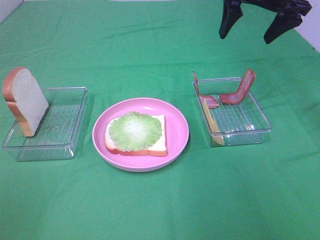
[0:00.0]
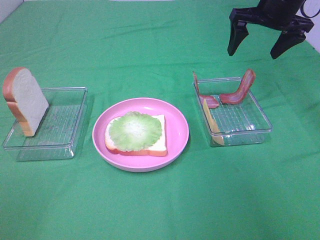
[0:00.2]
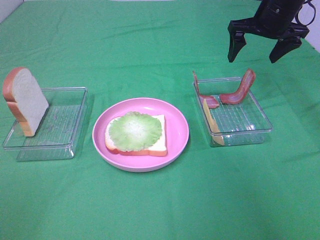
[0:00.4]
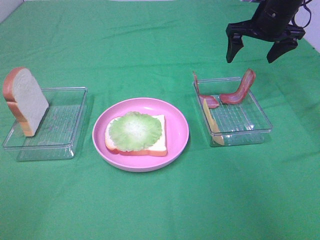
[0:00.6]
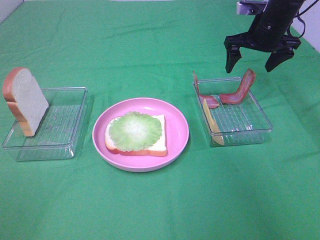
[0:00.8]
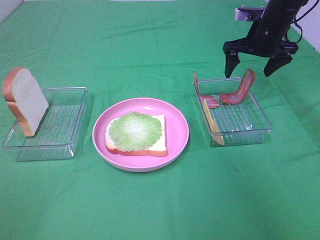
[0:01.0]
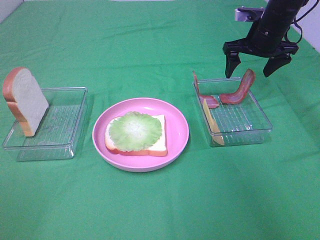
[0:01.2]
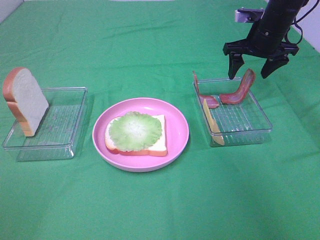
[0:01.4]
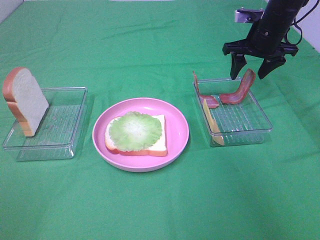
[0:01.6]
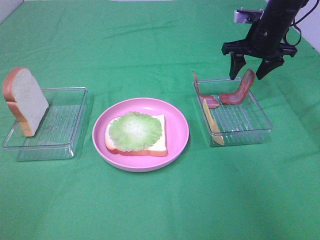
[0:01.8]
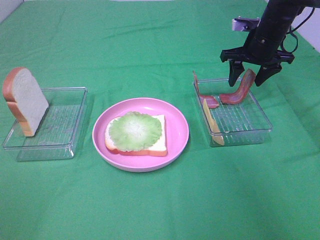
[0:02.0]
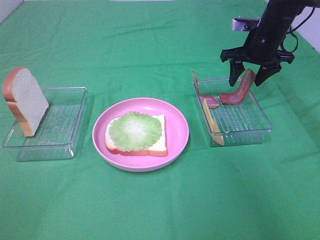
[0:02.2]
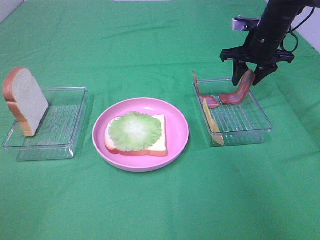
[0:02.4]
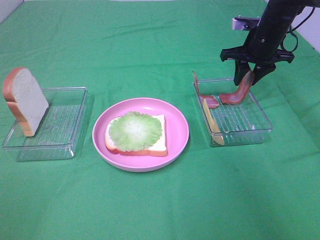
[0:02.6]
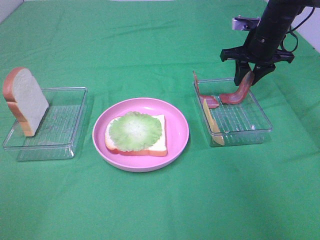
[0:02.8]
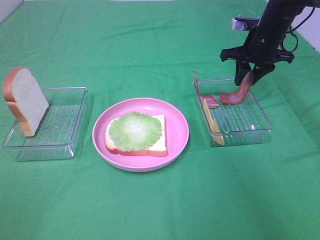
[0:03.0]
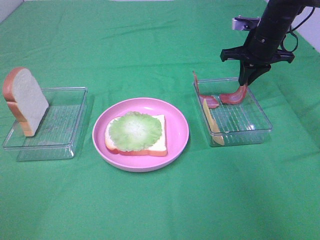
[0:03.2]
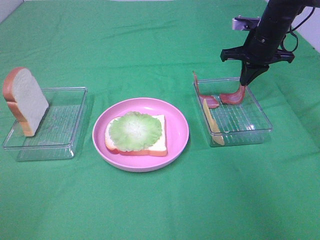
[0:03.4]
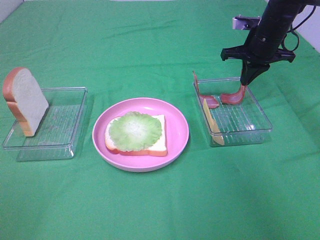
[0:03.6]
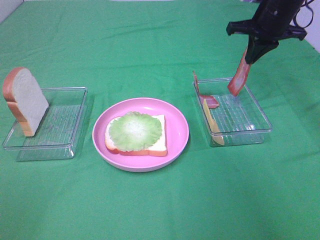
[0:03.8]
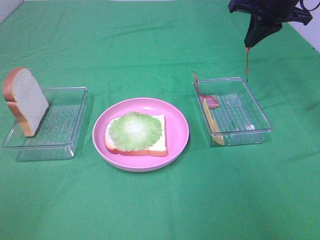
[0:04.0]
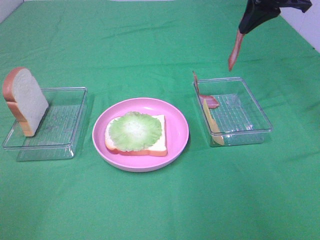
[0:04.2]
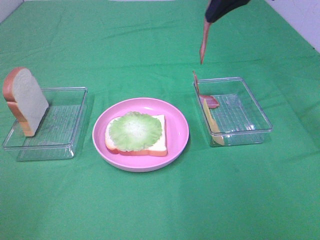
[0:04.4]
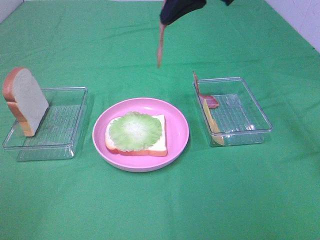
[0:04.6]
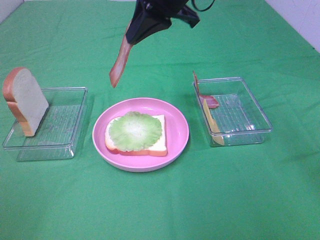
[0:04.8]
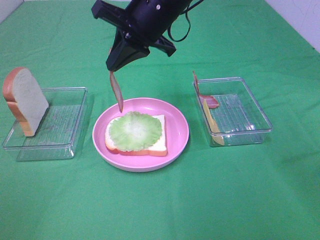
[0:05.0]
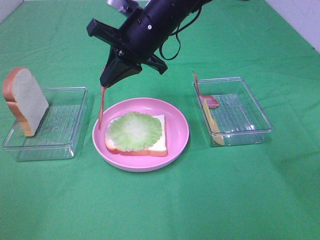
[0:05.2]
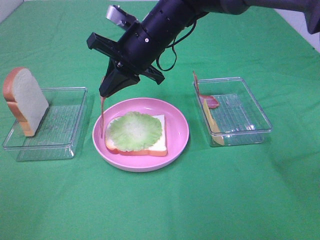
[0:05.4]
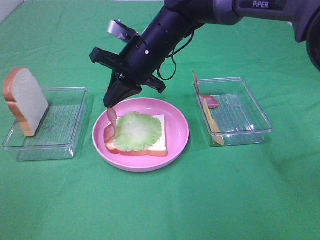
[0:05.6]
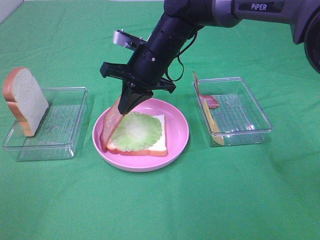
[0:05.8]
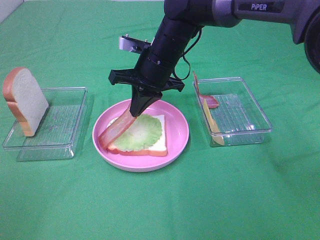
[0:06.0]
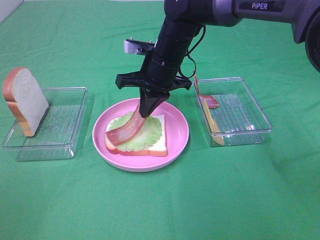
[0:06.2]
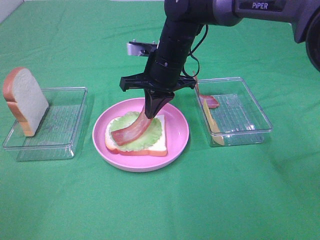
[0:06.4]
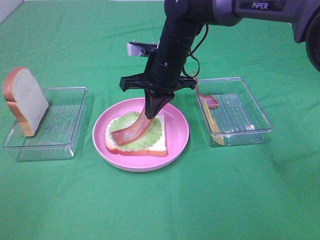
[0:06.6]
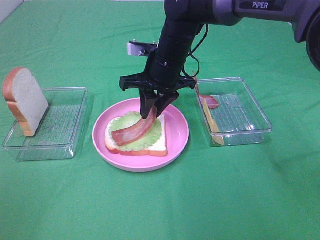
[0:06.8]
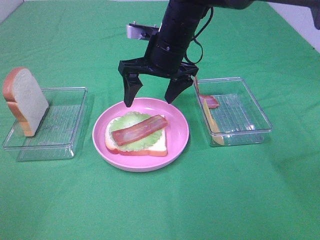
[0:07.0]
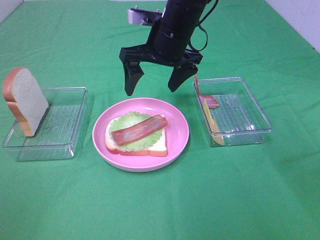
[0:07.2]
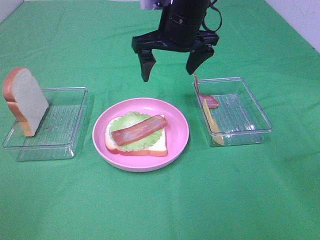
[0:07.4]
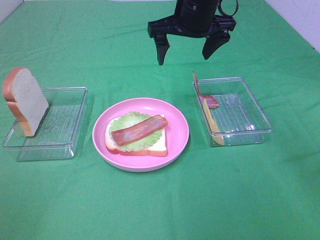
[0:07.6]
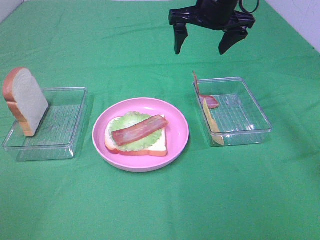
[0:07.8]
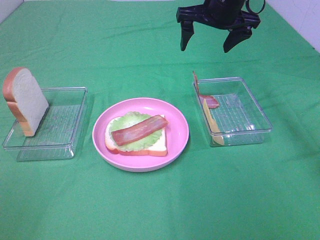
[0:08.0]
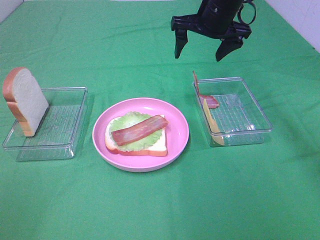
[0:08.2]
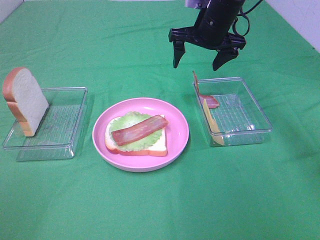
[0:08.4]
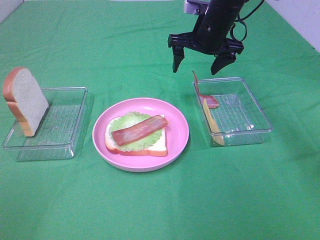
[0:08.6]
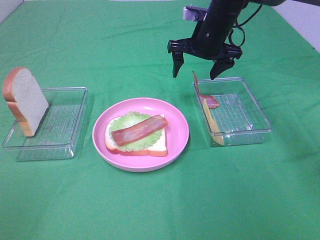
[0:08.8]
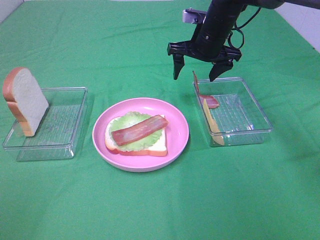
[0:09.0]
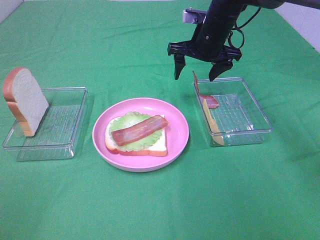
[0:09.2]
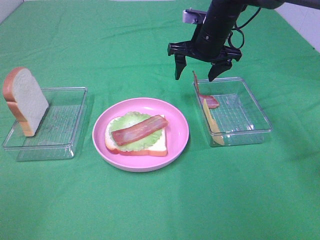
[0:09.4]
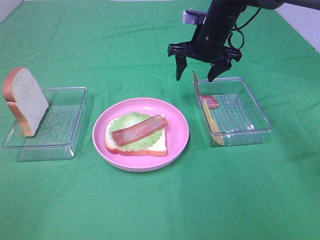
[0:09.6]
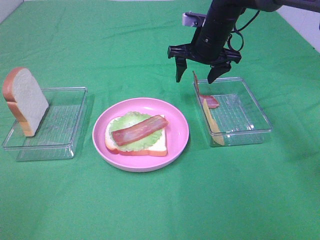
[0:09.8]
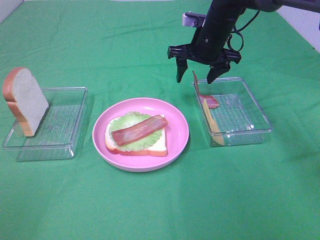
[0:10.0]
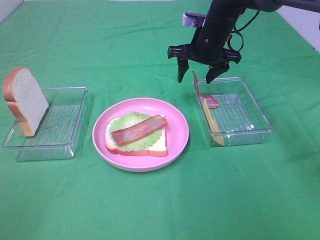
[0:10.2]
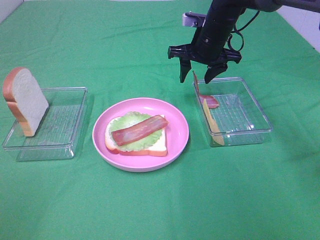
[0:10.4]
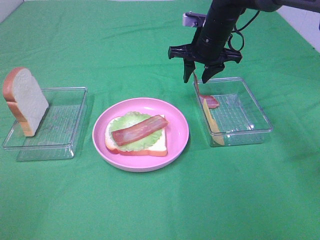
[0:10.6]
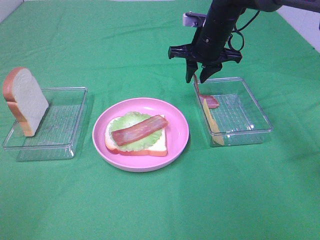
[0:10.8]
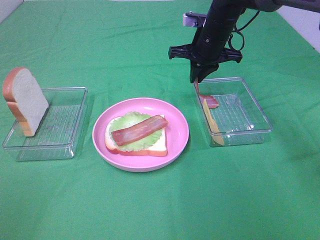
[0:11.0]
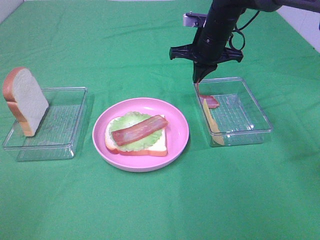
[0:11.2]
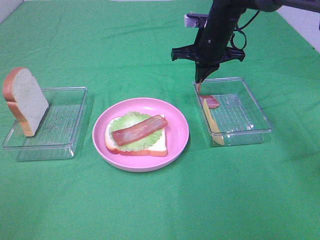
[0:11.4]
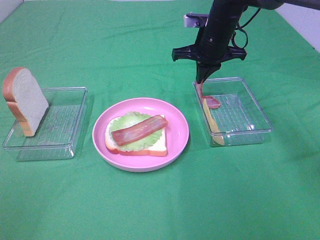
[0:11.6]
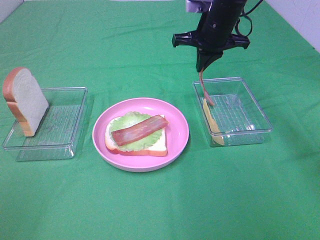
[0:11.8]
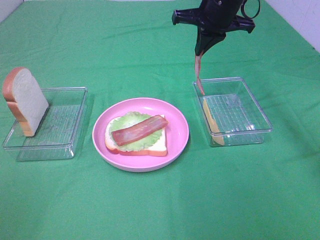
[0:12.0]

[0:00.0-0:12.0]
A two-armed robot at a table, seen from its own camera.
Task of the whole recording: Make sandwiches.
Step, 0.0 to 3.6 s: Right hand:grab the bacon.
Step, 3.8 to 6.8 s: Right hand:place bacon on lettuce slice.
Step, 7.0 to 11.6 s: Right hand:grab the bacon.
0.0 to 1.6 s: The right gripper is displaced downward by approximately 10 cm.
1.6 to 3.0 s: The grippers move only a little.
3.0 to 4.4 s: The right gripper is displaced upward, to the left and backward by about 20 cm, and closes its fingers.
4.4 to 6.0 s: The right gripper travels downward and to the left by some 20 cm.
6.0 to 7.6 s: The right gripper travels upward and to the right by some 10 cm, and opens up.
7.6 to 9.0 s: The right gripper shifts some 10 cm downward.
9.0 to 10.4 s: The two grippers keep their place.
10.4 to 12.0 s: The right gripper goes some 10 cm upward, and closes up.

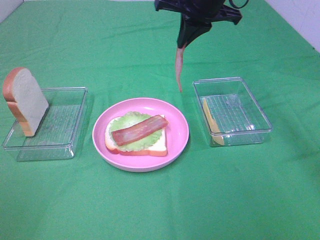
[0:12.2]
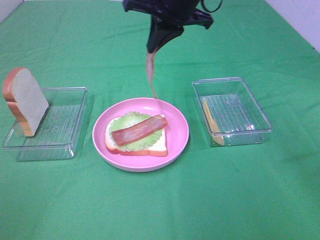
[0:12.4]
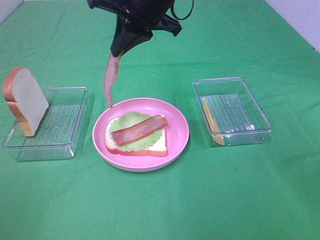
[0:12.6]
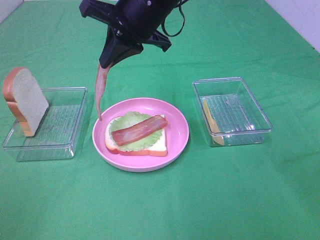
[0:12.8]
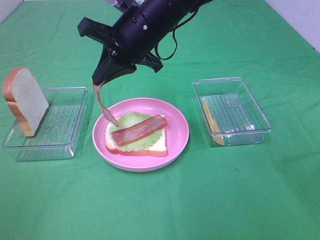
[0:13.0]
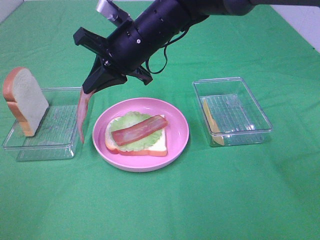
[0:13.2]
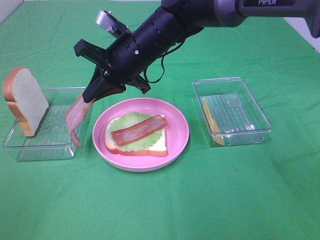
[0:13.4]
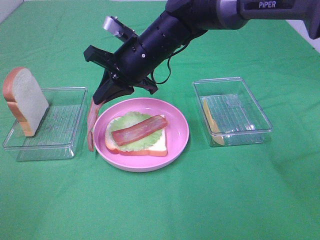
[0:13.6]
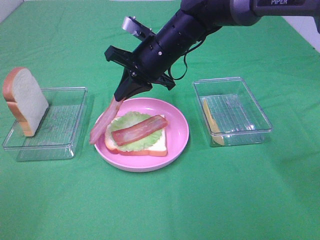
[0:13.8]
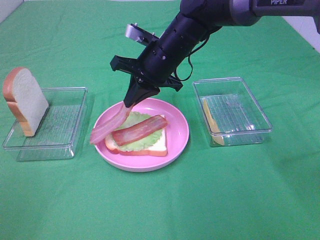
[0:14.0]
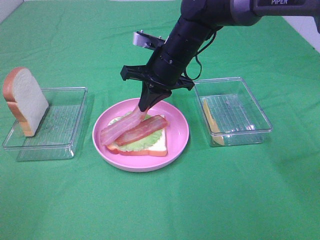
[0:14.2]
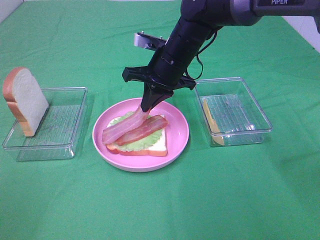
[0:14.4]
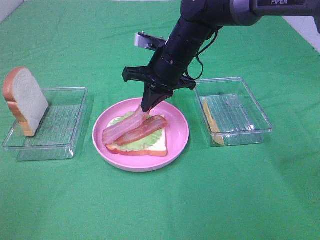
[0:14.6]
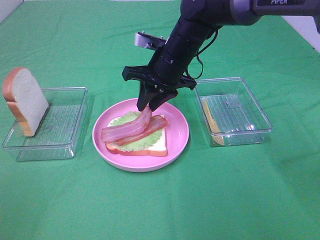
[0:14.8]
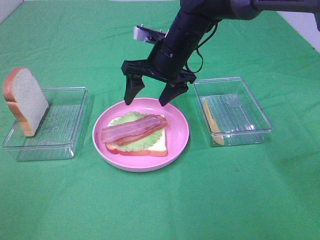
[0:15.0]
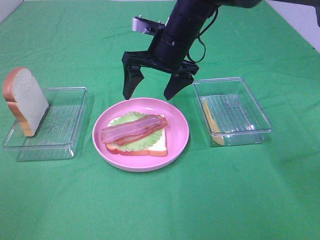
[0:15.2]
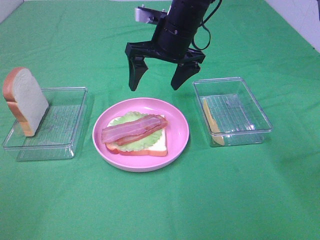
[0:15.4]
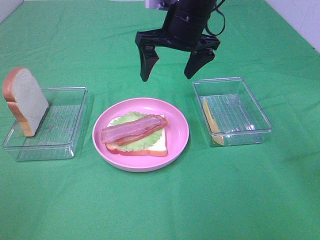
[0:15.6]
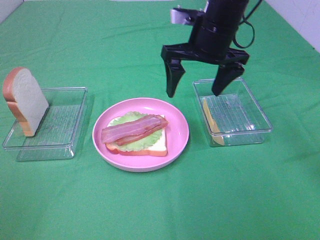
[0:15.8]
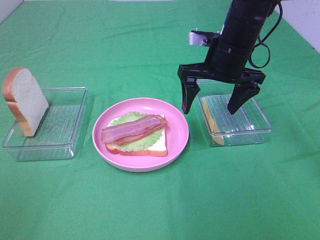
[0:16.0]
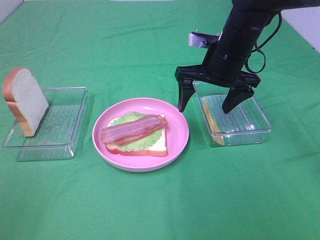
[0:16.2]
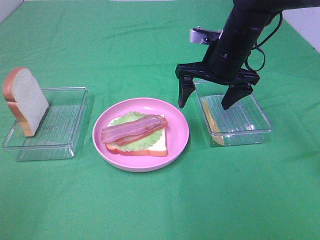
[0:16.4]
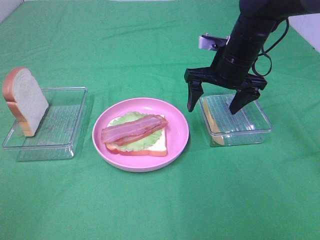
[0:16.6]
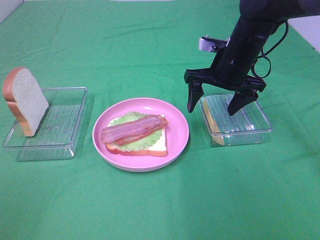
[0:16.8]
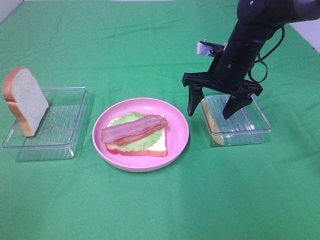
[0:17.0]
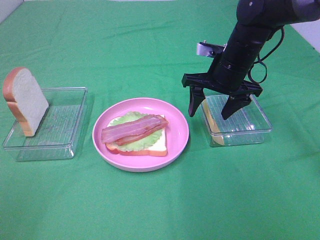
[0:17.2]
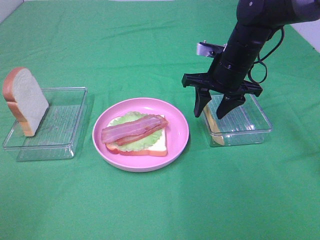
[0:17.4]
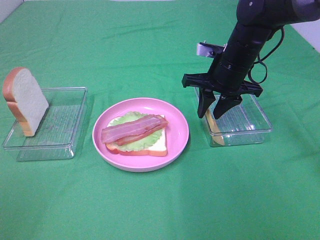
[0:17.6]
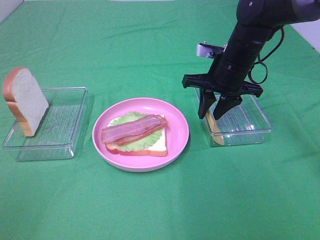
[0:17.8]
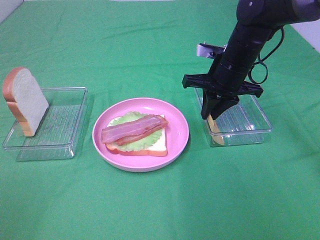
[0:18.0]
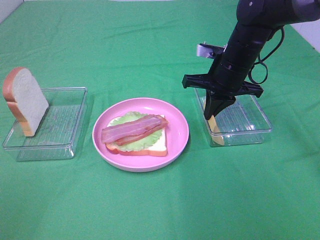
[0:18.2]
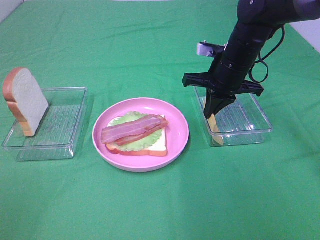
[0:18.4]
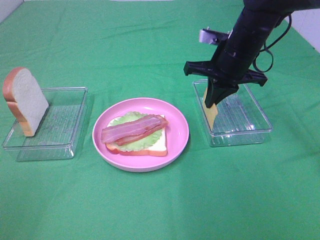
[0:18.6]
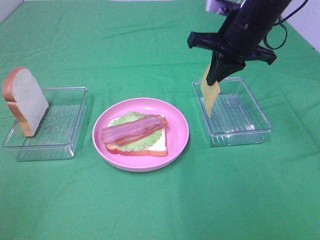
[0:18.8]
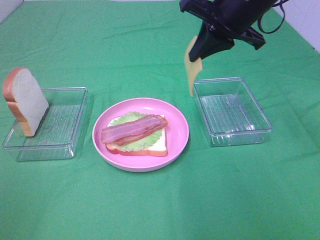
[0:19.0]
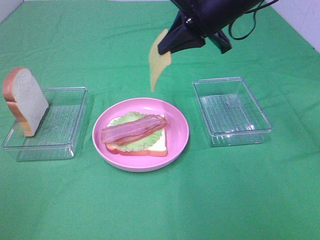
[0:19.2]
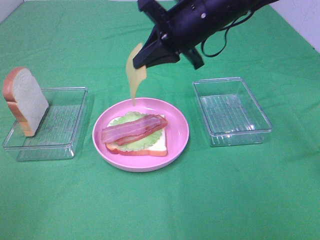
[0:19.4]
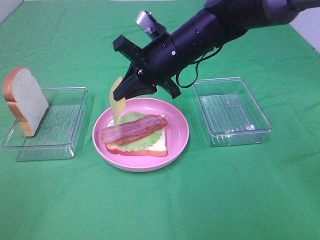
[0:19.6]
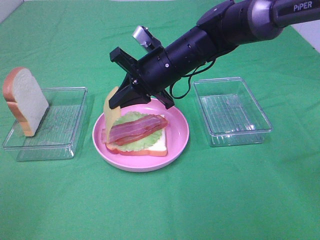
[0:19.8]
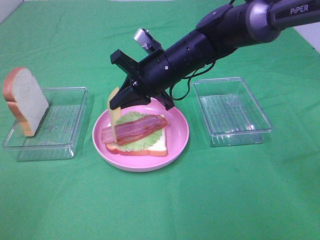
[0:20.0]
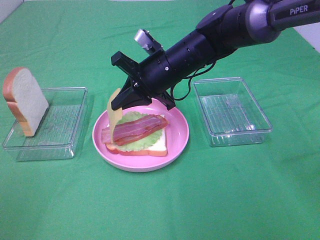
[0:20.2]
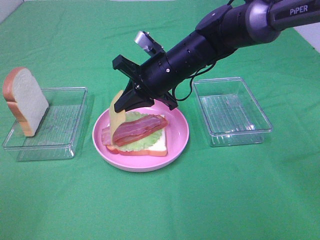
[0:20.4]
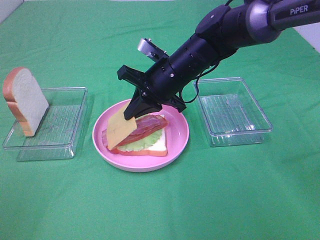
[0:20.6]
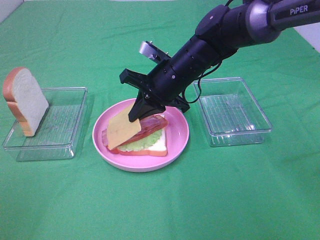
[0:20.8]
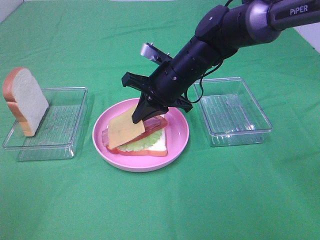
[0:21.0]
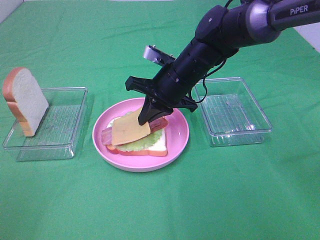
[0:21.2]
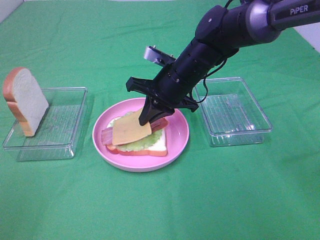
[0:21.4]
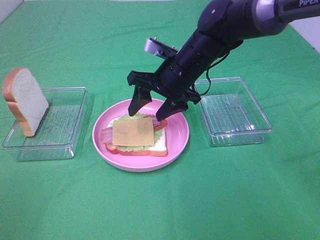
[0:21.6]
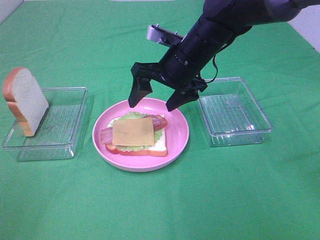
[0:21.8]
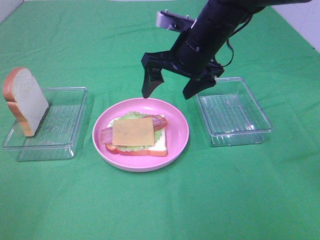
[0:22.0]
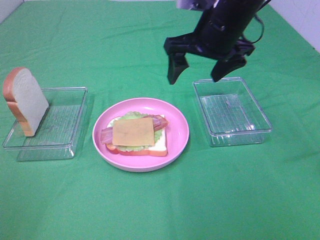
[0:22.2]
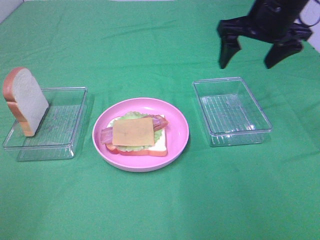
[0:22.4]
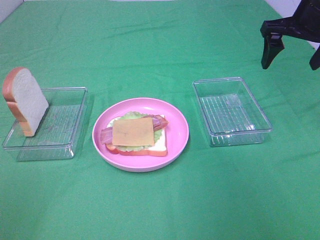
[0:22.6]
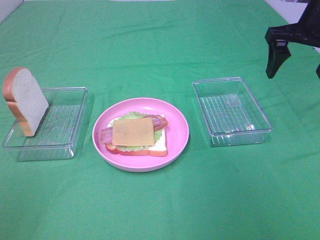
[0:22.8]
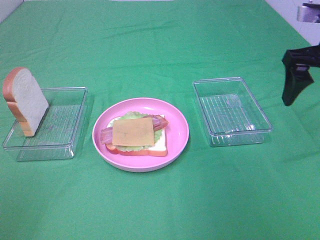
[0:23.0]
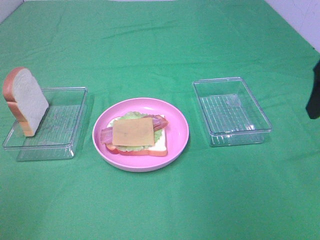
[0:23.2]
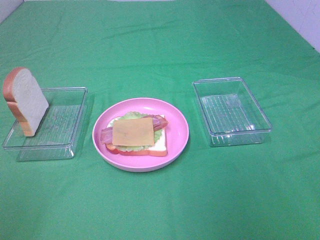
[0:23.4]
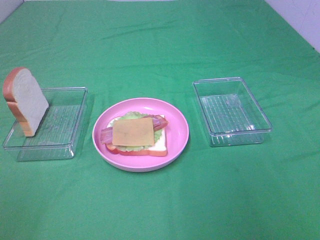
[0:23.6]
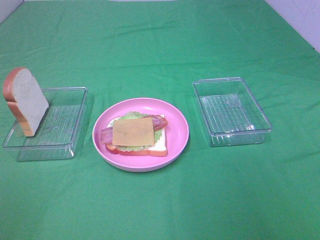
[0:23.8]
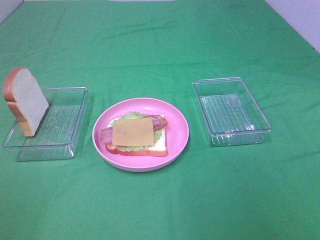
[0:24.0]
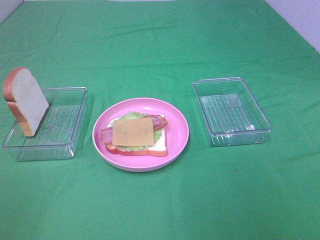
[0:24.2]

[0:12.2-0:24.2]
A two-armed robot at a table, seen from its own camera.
Task of the whole recording: Make sandwiches.
Step, 12.2 to 14.8 s: Right hand:place bacon on bacon.
Step, 15.0 to 18.6 s: Right hand:grab the cheese slice.
Step, 18.8 to 21.6 s: Right hand:place the cheese slice on top of the bacon.
12.2 to 13.8 s: The right gripper is displaced downward and to the left by about 15 cm.
13.8 to 15.2 s: The right gripper opens its fingers.
15.2 to 16.6 s: The right gripper heads to the right, covering approximately 10 cm.
16.6 to 18.2 s: The right gripper closes.
18.2 to 19.8 s: The right gripper travels to the left by about 10 cm, and reaches about 10 cm upward, then returns.
19.8 to 21.2 s: The grippers move only a little.
21.2 to 22.6 s: The right gripper goes some 25 cm to the right and upward, and opens up.
22.6 to 24.2 s: The right gripper is displaced backward by about 40 cm.
